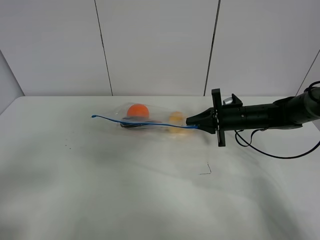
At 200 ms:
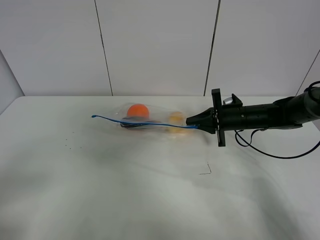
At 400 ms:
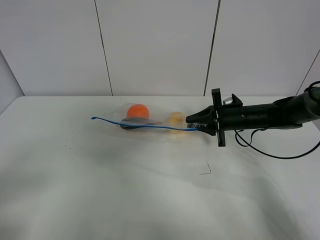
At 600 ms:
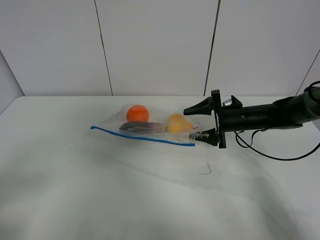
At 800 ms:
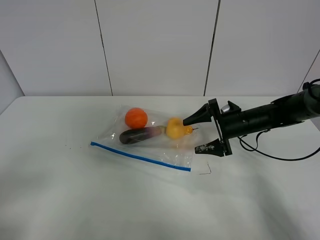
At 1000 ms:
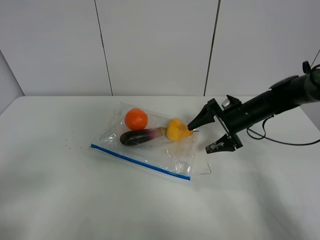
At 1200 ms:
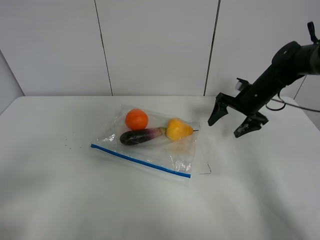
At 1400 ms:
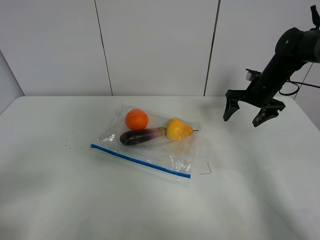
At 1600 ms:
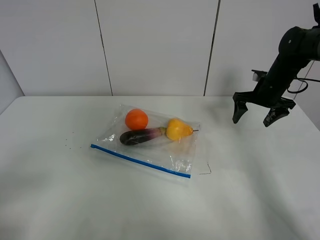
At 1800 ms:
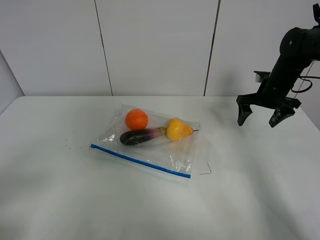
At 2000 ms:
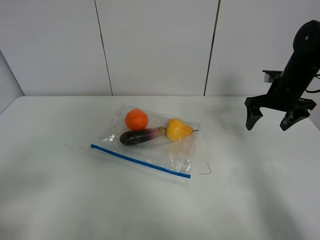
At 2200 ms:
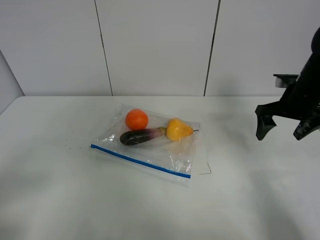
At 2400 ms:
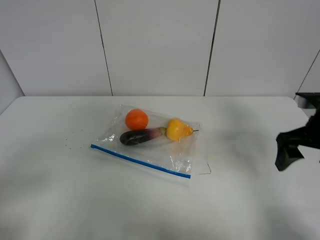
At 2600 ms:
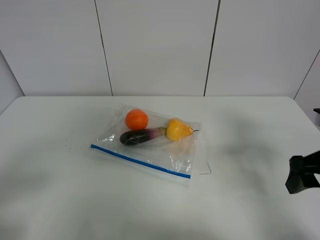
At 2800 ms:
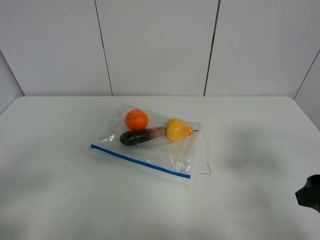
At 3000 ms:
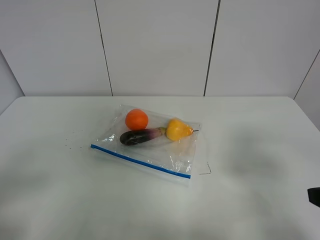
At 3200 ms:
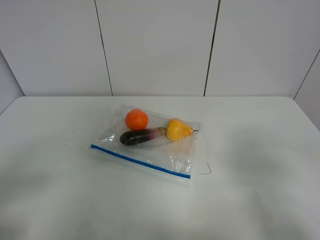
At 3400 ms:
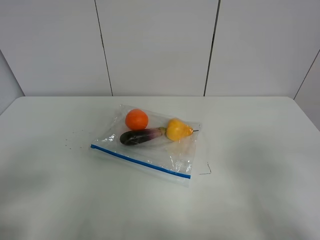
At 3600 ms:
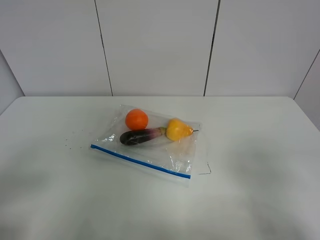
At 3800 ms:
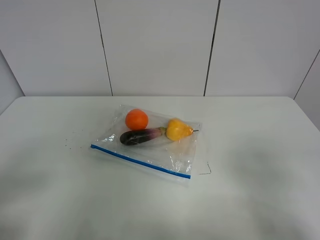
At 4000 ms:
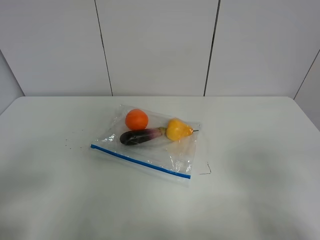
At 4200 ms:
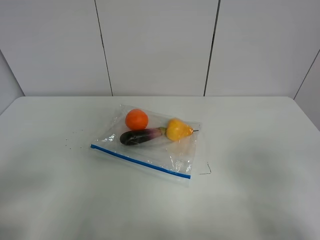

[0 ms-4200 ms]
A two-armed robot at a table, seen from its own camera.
0 ms to 1400 ms: The right gripper shifts approximately 10 cm upward, to the right and forward, and opens up.
1400 ms to 2800 ms: The right gripper heads backward, covering some 30 cm.
2800 ms to 4200 ms: The right gripper is displaced backward by some 10 cm.
